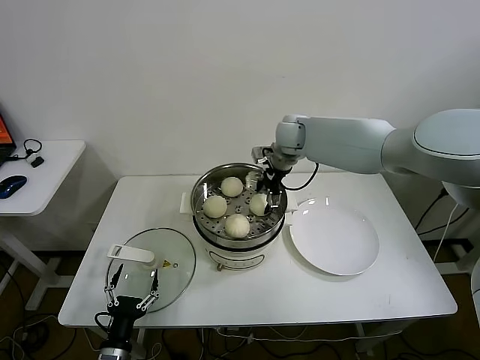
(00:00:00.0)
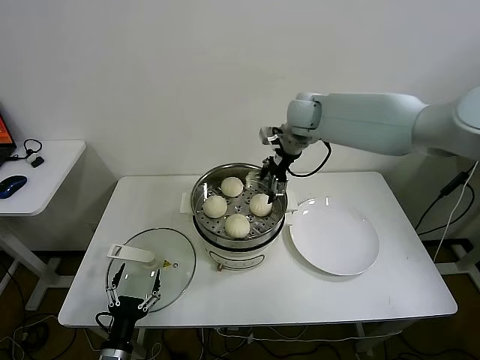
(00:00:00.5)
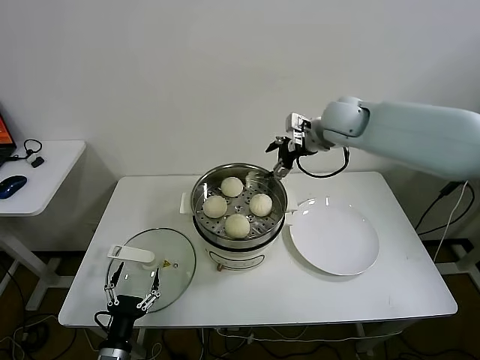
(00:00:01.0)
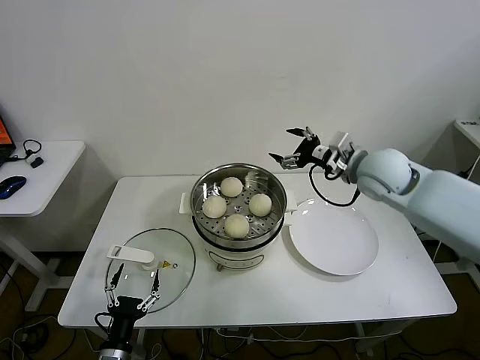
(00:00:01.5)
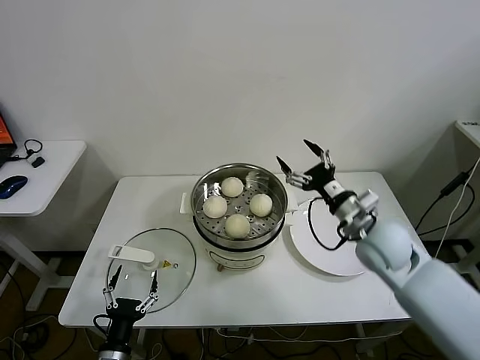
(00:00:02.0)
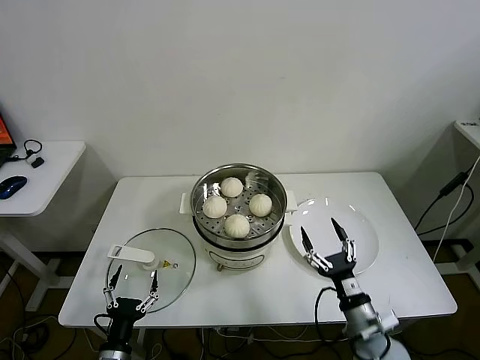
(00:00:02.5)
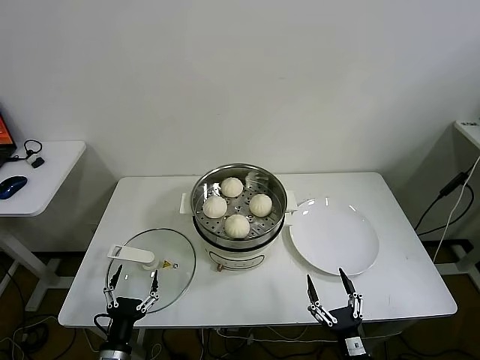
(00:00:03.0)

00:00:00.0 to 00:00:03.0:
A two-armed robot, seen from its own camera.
Task of the whole recording: take steamed baozi put them in steamer.
00:00:00.0 to 00:00:01.5: The right gripper shifts approximately 20 cm backward and to the right.
00:00:01.5 to 00:00:03.0: The right gripper is displaced backward and downward by some 50 cm.

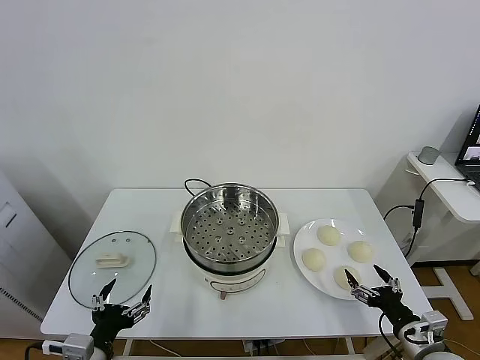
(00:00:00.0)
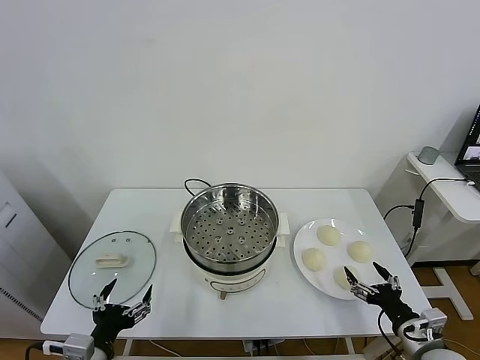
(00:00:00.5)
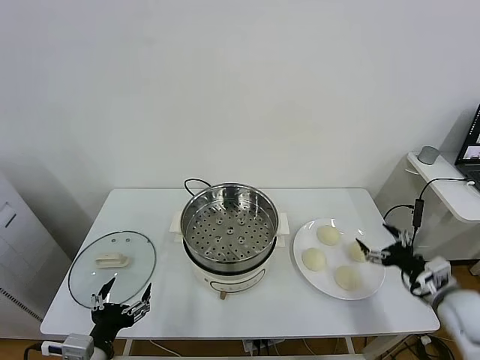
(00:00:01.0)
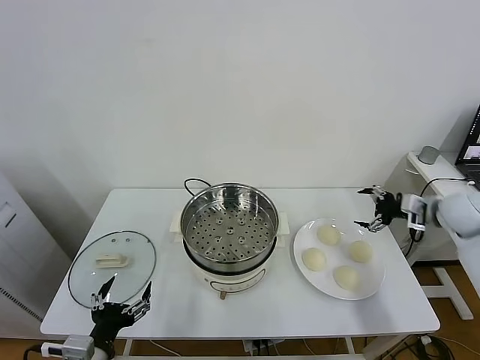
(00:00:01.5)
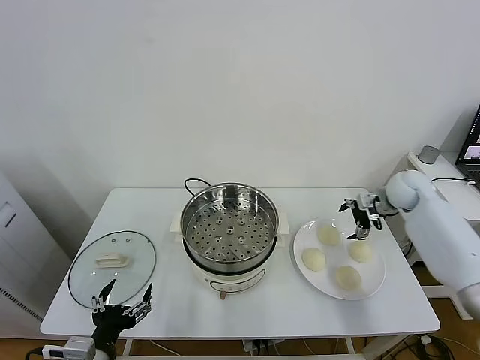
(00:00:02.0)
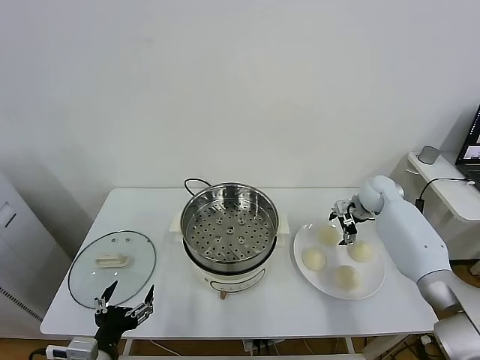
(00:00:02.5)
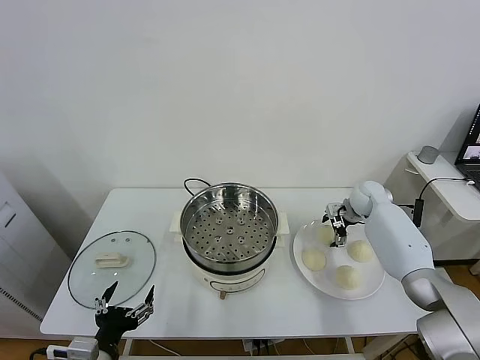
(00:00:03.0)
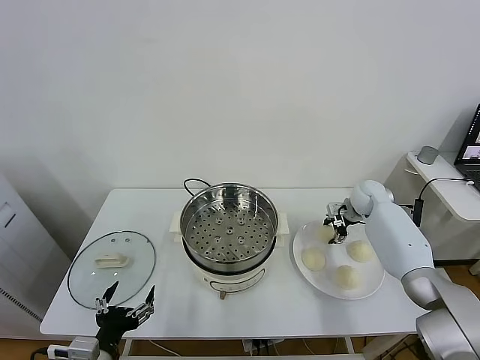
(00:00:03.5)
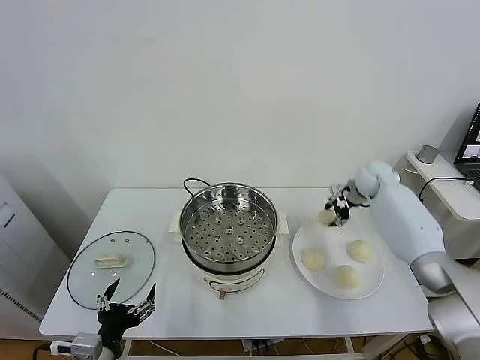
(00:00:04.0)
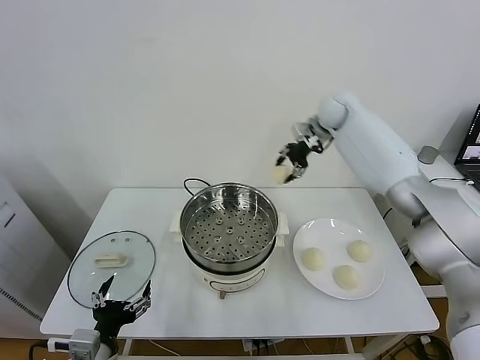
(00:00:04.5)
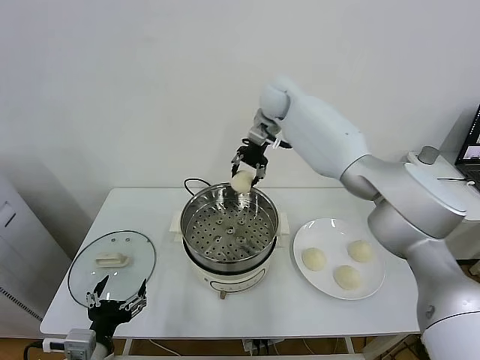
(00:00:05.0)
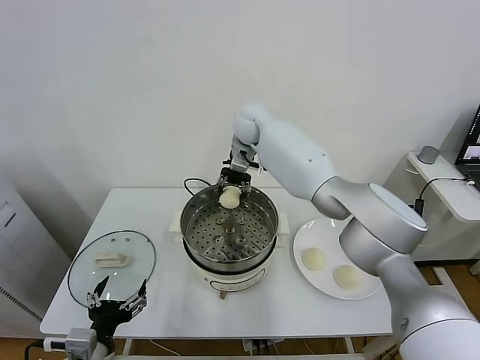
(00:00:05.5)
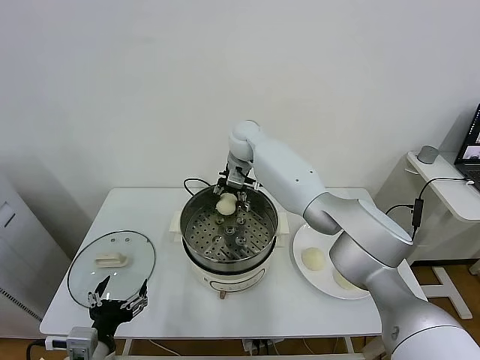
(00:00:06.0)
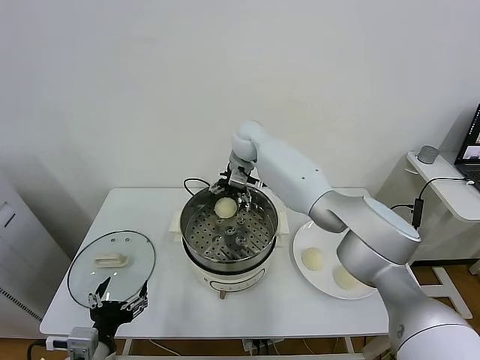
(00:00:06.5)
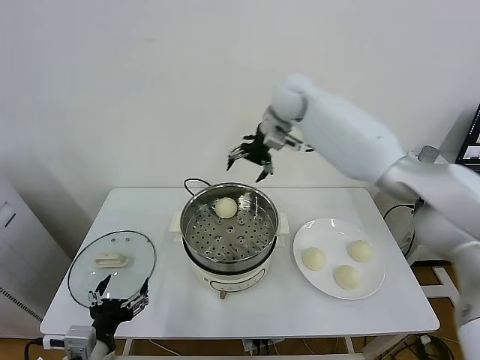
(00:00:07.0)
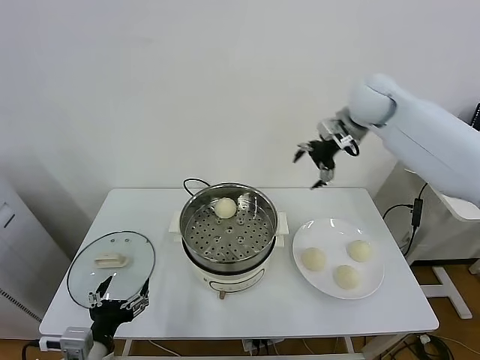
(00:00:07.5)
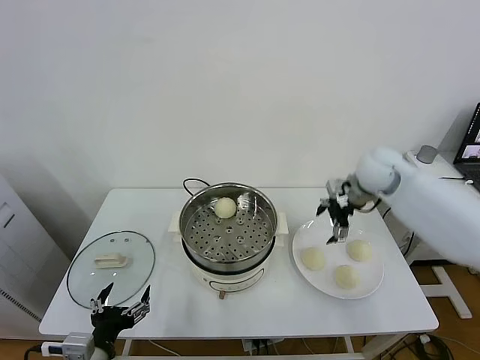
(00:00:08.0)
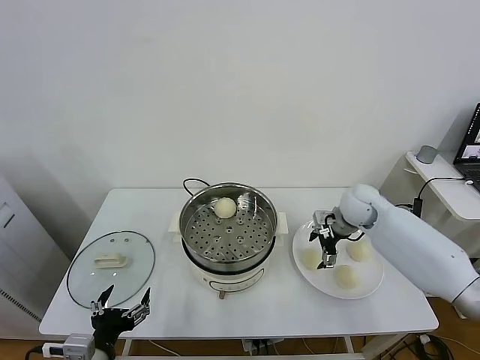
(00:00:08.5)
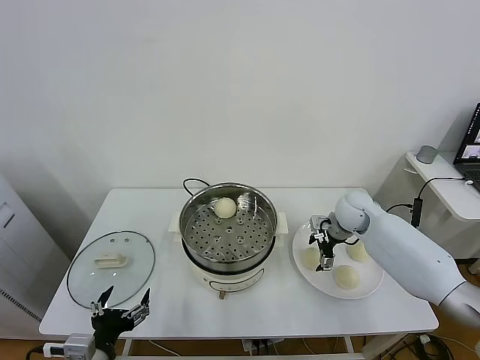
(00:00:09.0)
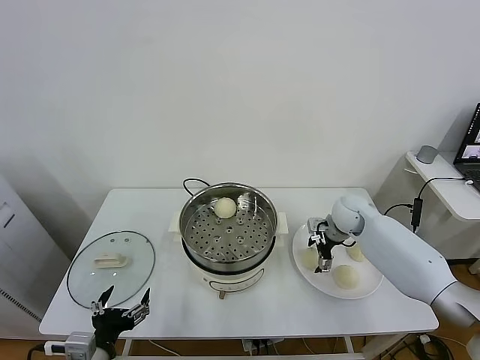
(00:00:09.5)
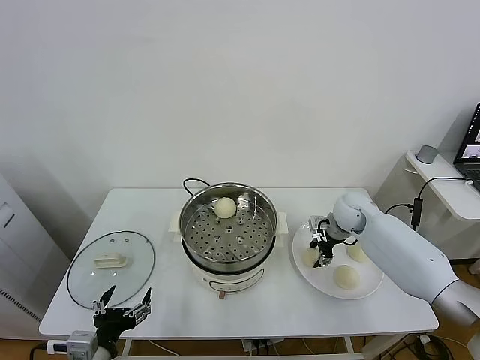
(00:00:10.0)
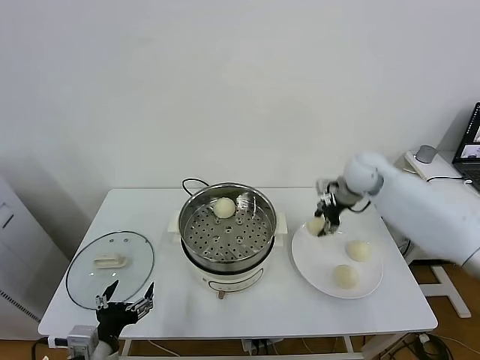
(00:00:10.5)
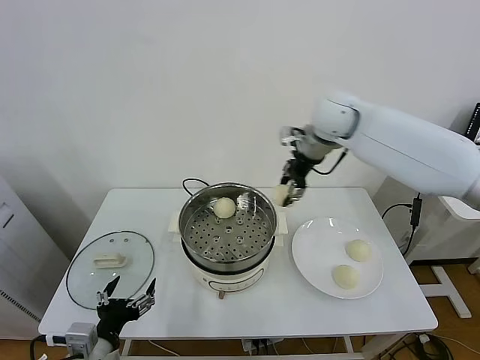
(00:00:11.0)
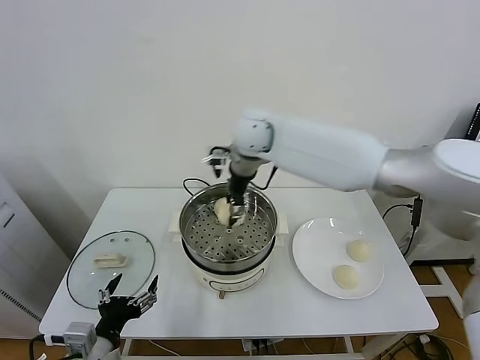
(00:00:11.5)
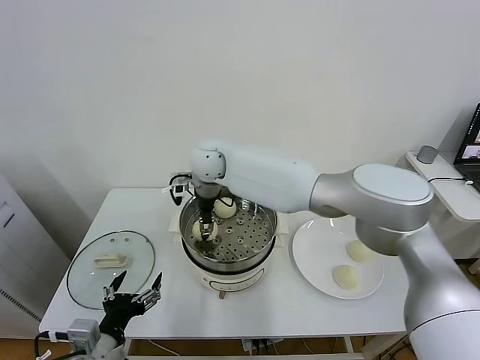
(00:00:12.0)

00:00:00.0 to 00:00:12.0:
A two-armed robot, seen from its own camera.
Task of the whole recording: take steamed baozi put them in steamer.
Step, 00:00:00.0 to 00:00:03.5: Grasp the baozi in the plate with right gripper.
Step, 00:00:04.0 to 00:00:06.5: Place the baozi on the steamer with right gripper.
Step, 00:00:07.0 to 00:00:10.0: Grasp the baozi in the plate with right gripper.
00:00:02.0 to 00:00:04.0: The right gripper moves forward and to the left, some 10 cm, travels downward and back again, about 5 cm each way, and closes up.
00:00:04.0 to 00:00:06.0: The right gripper goes about 35 cm to the left.
00:00:06.0 to 00:00:08.0: The right gripper is displaced to the right by roughly 30 cm, and opens its fingers.
00:00:08.0 to 00:00:10.0: The right gripper heads downward, covering some 10 cm, and closes.
00:00:10.0 to 00:00:12.0: The right gripper moves to the left and upward, approximately 40 cm.

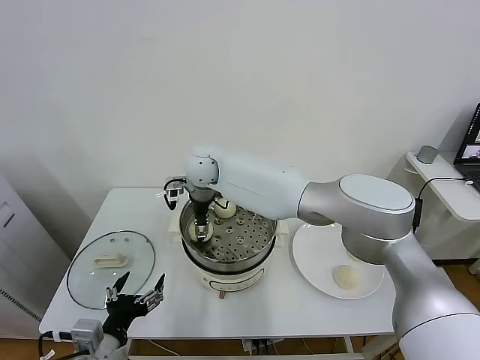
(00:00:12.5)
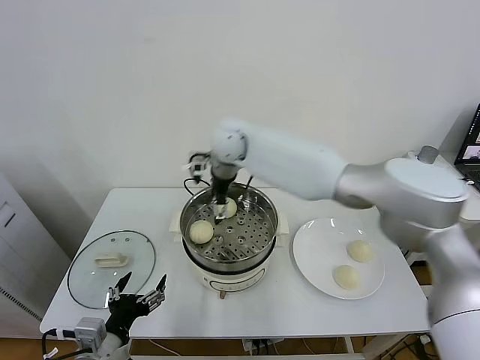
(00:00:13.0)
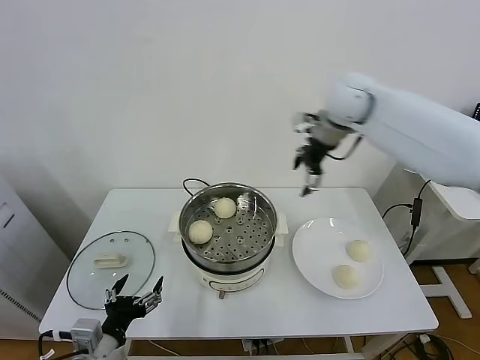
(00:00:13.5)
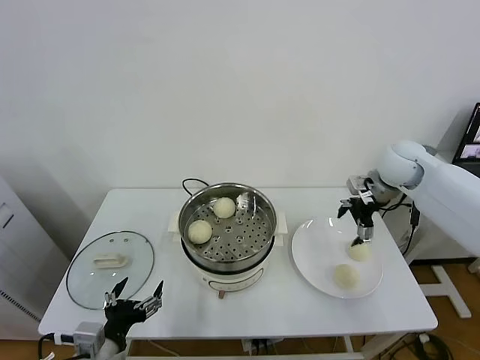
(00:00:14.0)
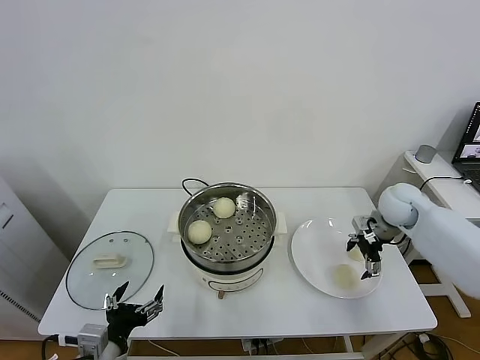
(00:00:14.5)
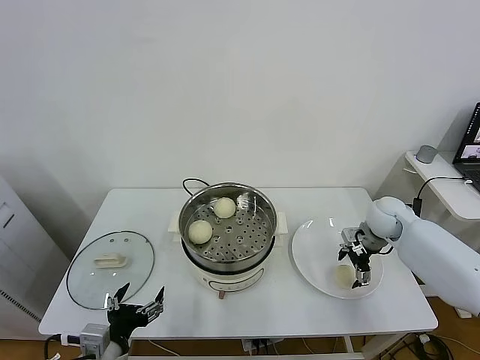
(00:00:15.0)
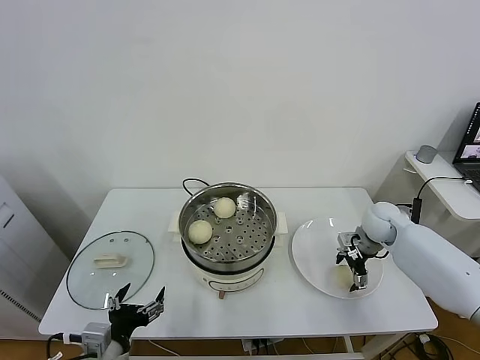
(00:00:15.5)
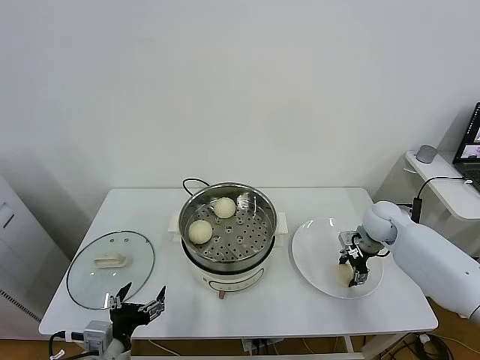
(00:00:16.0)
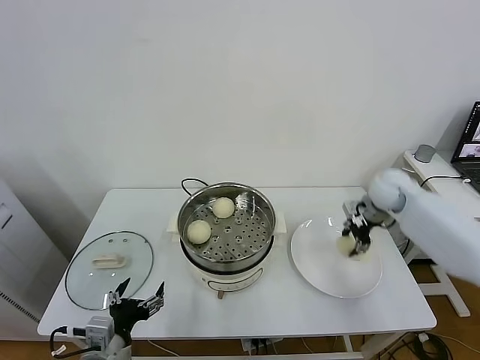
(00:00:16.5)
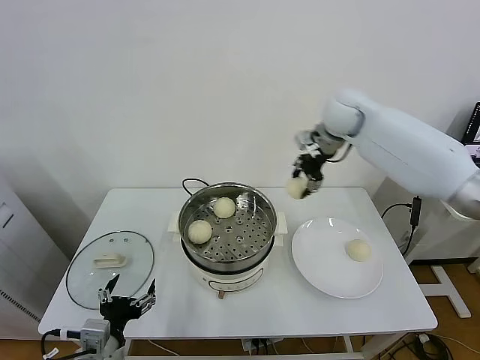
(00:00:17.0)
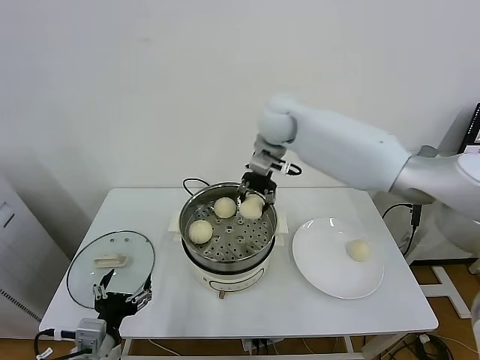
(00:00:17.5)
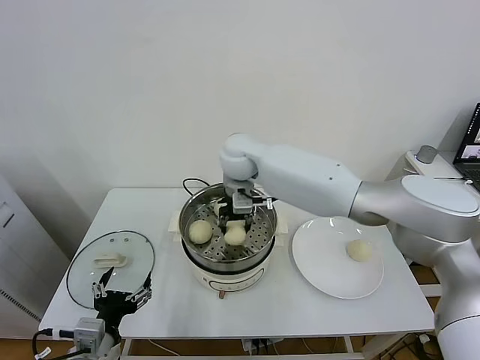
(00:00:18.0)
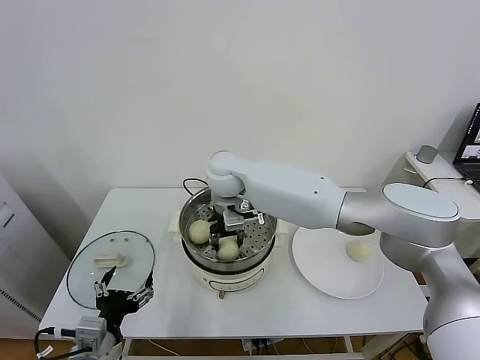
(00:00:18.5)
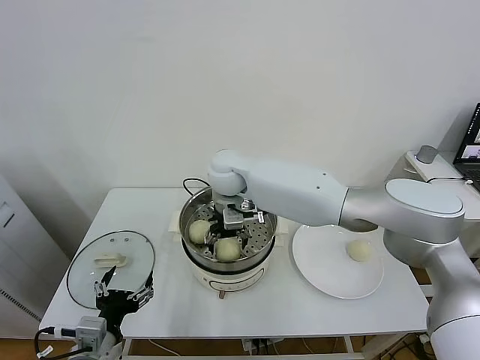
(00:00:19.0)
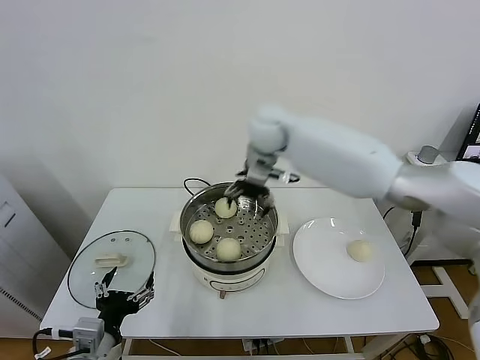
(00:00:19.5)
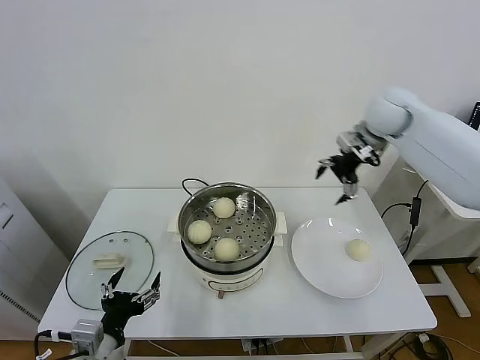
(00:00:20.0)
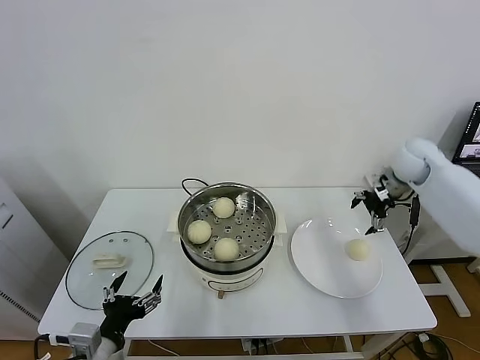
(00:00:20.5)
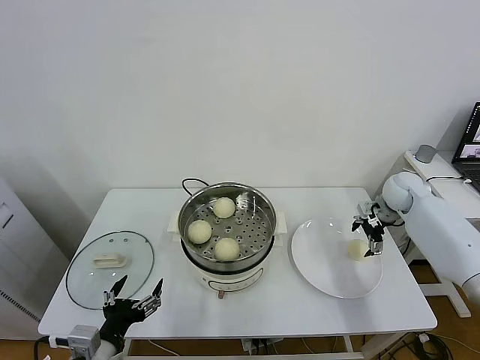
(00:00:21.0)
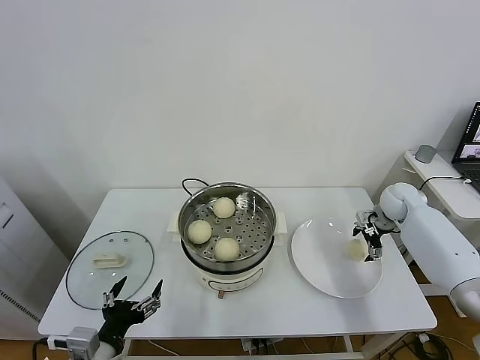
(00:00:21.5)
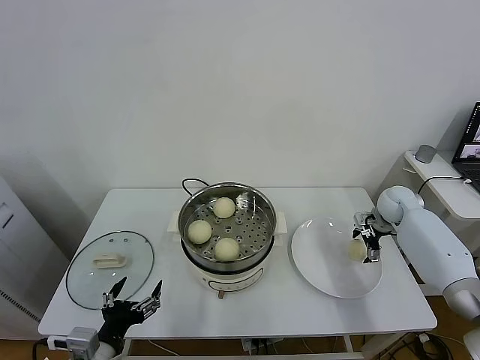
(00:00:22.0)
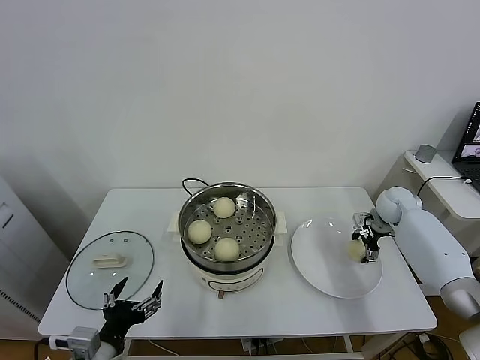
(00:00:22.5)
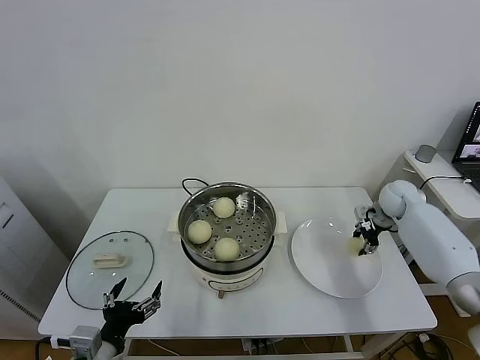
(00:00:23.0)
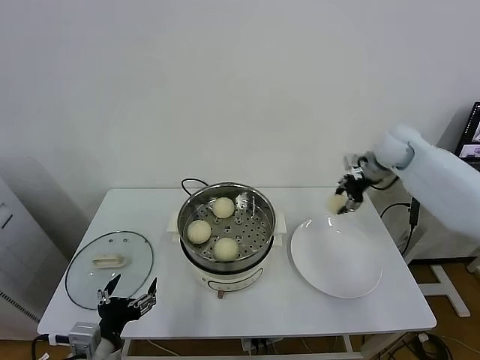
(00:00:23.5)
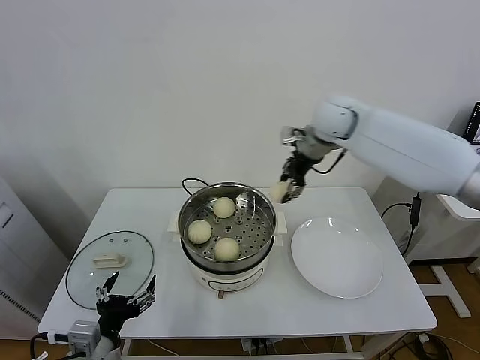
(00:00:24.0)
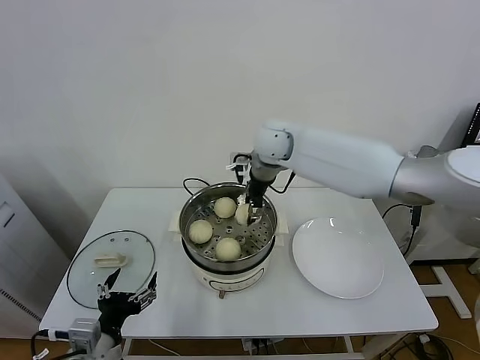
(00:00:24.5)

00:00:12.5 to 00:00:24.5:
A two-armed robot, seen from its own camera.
Task of the whole recording: take steamed baozi put them in steamer.
Step, 00:00:13.0 to 00:00:16.0: Grasp the baozi in the plate with right gripper.
Step, 00:00:16.5 to 00:00:19.0: Place the baozi on the steamer with right gripper.
Step, 00:00:19.5 to 00:00:22.5: Grasp the baozi in the plate with right gripper.
00:00:12.5 to 00:00:14.5: The right gripper moves to the right, roughly 50 cm, and opens its fingers.
00:00:14.5 to 00:00:16.5: The right gripper changes place by approximately 5 cm, and closes its fingers.
00:00:16.5 to 00:00:18.5: The right gripper goes some 40 cm to the left.
00:00:18.5 to 00:00:20.5: The right gripper shifts about 40 cm to the right, and opens up.
00:00:20.5 to 00:00:22.5: The right gripper is displaced downward by approximately 15 cm.
00:00:22.5 to 00:00:24.5: The right gripper moves to the left and upward, some 40 cm, and closes.
